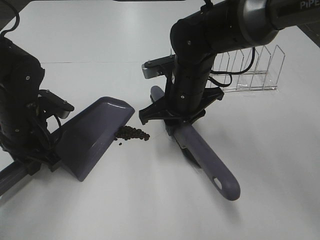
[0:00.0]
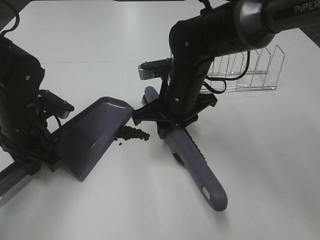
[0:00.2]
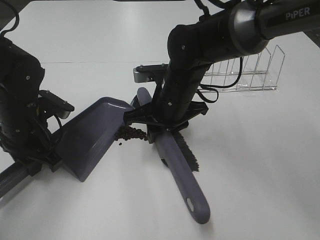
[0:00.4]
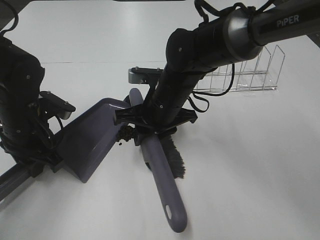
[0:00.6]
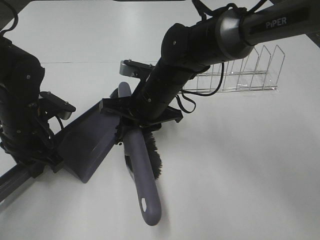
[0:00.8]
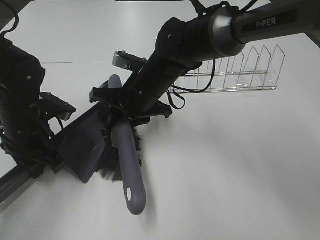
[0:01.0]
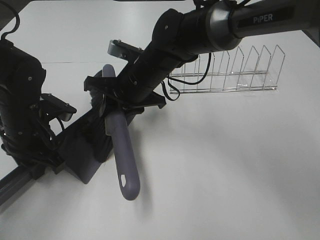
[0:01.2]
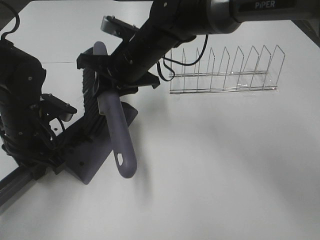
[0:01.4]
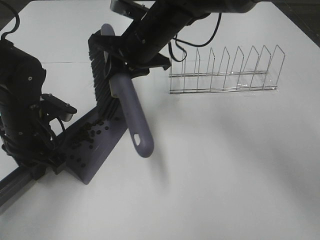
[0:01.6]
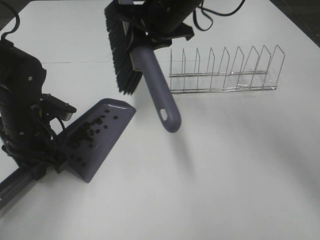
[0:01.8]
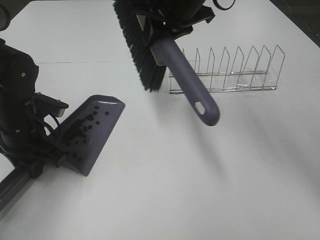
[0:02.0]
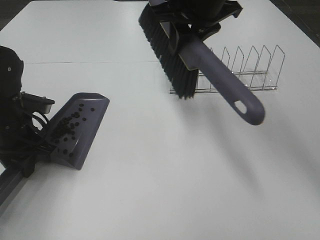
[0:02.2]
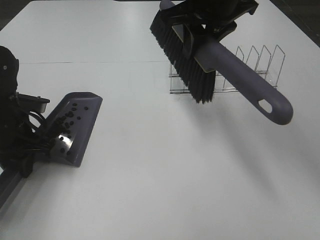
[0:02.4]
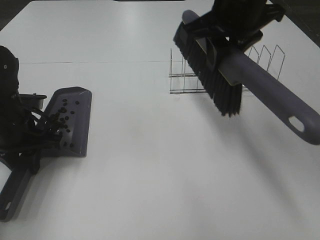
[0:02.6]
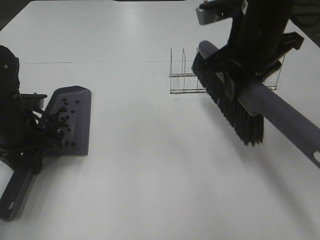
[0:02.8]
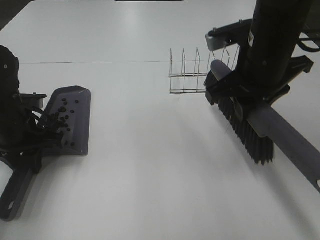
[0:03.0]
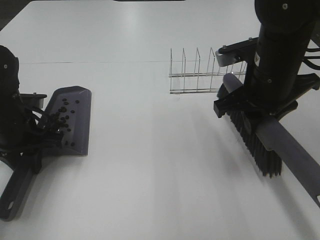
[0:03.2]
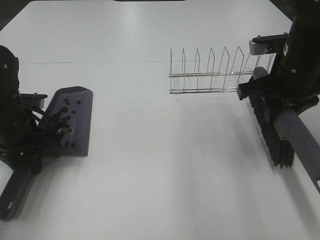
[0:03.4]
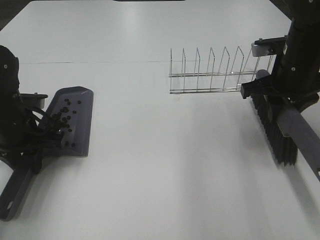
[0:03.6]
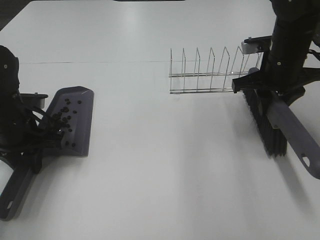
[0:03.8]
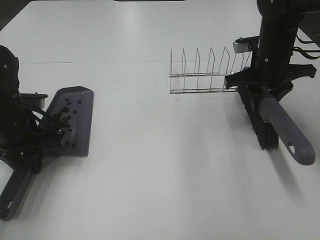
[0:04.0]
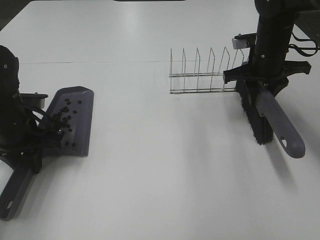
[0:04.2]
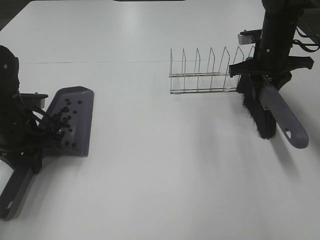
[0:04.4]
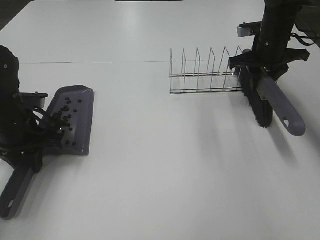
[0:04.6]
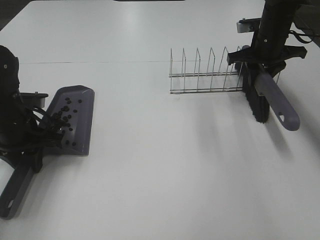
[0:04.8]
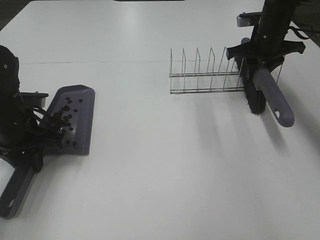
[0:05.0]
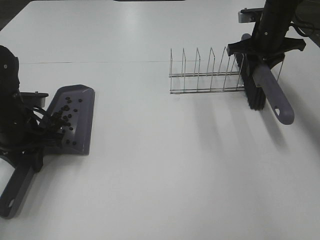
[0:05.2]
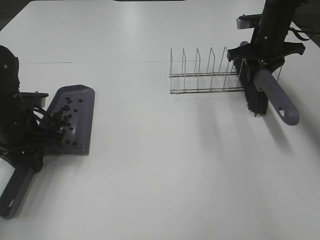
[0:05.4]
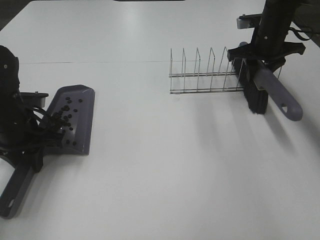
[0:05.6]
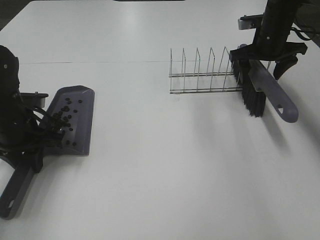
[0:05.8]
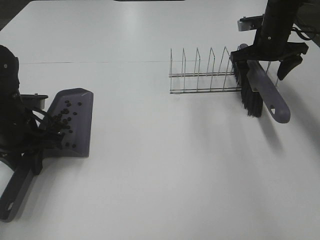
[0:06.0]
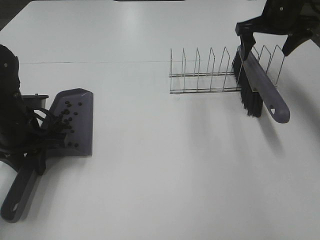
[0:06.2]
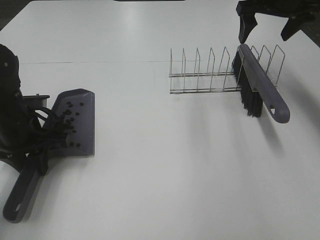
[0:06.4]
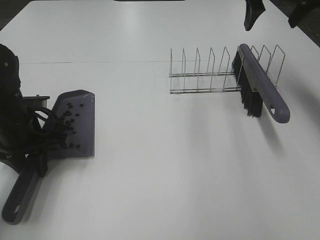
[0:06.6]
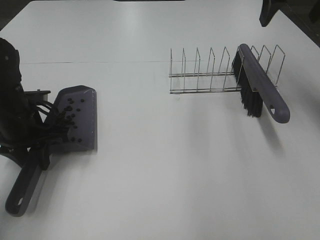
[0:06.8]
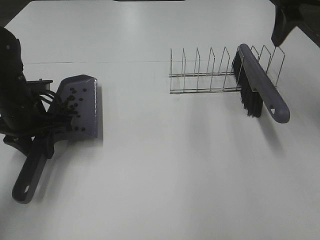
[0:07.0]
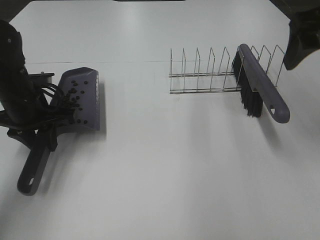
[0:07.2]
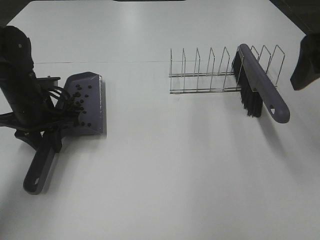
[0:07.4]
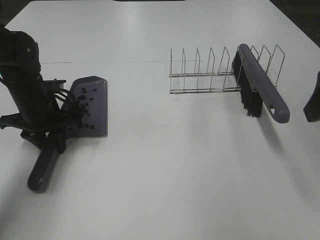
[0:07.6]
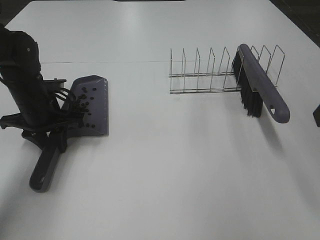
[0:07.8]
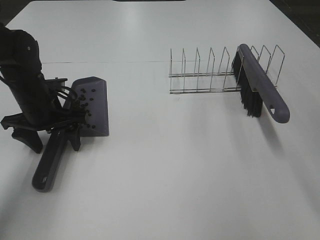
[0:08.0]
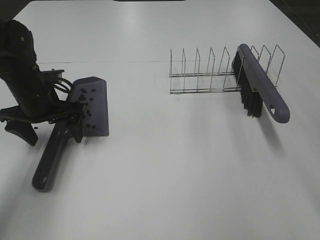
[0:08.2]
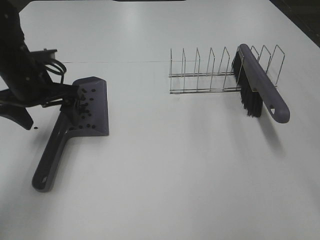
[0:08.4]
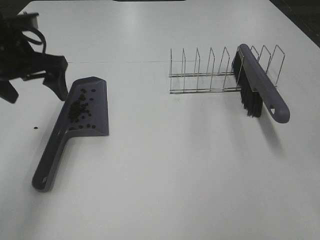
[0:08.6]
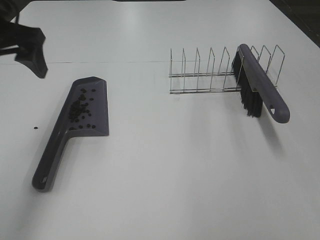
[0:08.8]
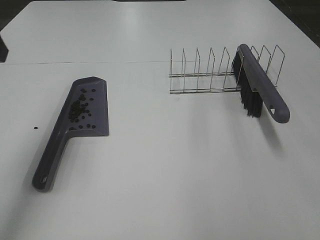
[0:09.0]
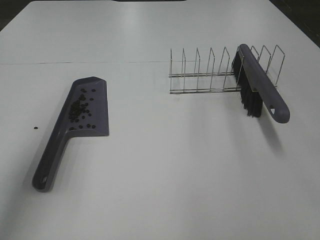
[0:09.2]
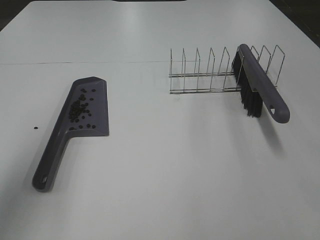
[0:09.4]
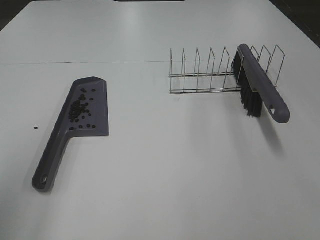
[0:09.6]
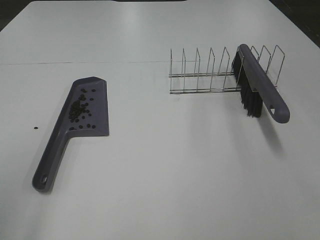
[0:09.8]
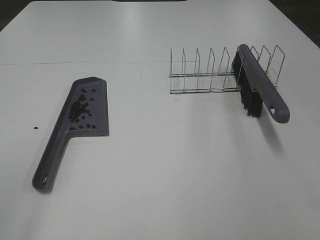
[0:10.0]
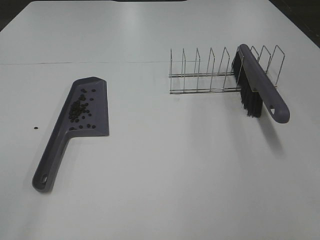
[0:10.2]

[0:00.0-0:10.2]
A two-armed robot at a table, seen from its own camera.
Task of the whole recording: Sweep Coffee Bean.
Step, 0:01.8 to 0:06.0: Right hand:place the broom on the rack.
Step, 0:06.2 to 0:08.2: Left hand:place the dustpan on the table.
0:00.0 to 0:01.4: The right gripper moves to the left and forward, approximately 10 cm.
0:01.4 to 0:03.0: The right gripper heads to the right and backward, covering about 20 cm.
0:03.0 to 0:04.4: The right gripper shifts roughly 20 cm forward, to the right and downward.
0:04.4 to 0:05.8: The right gripper opens its fingers.
0:05.8 to 0:07.2: The right gripper heads backward and upward, covering approximately 25 cm.
0:07.2 to 0:08.8: The right gripper is displaced backward by roughly 25 cm. The left gripper travels upward by some 15 cm, and opens.
0:08.8 to 0:10.2: The left gripper heads backward, covering approximately 30 cm.
